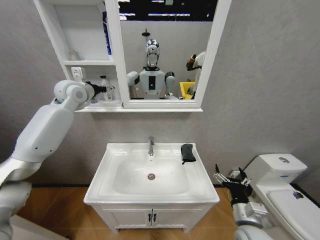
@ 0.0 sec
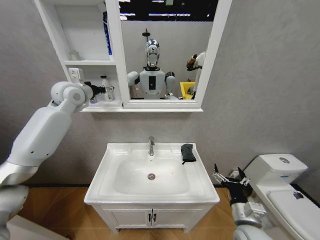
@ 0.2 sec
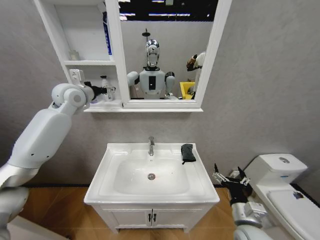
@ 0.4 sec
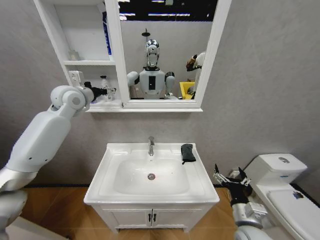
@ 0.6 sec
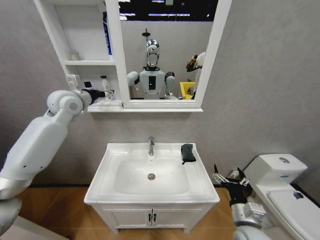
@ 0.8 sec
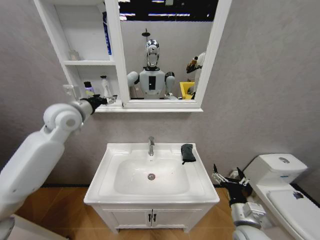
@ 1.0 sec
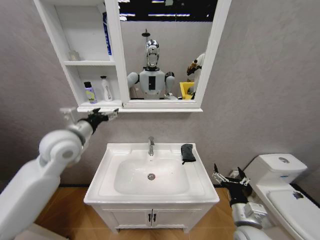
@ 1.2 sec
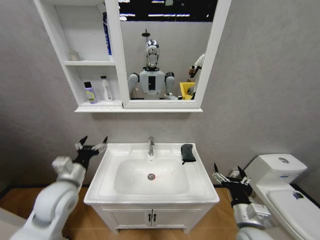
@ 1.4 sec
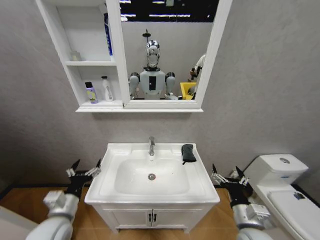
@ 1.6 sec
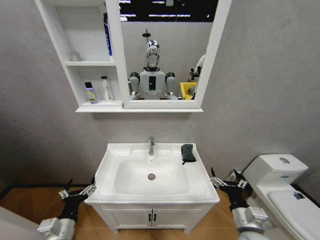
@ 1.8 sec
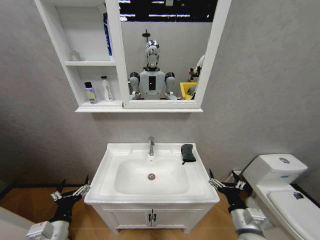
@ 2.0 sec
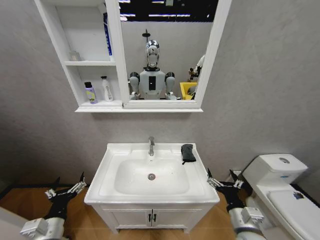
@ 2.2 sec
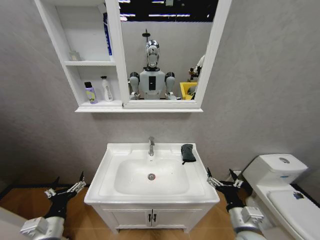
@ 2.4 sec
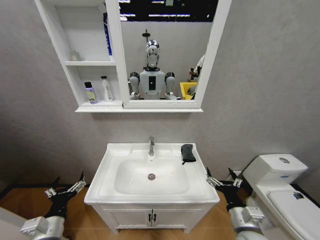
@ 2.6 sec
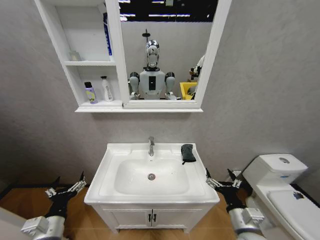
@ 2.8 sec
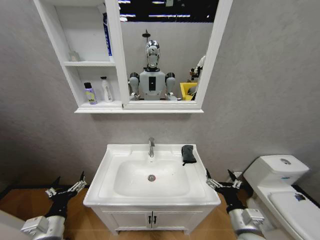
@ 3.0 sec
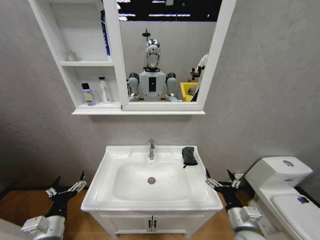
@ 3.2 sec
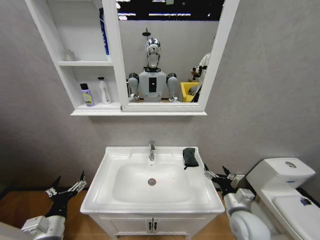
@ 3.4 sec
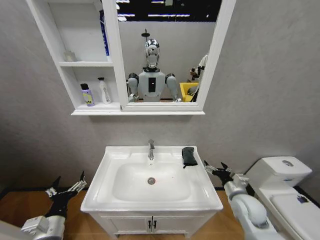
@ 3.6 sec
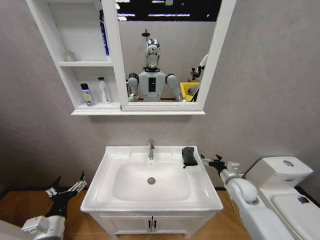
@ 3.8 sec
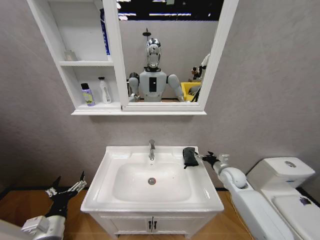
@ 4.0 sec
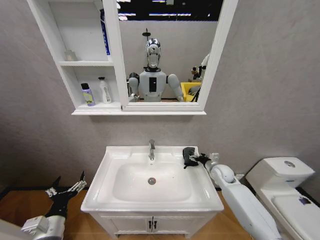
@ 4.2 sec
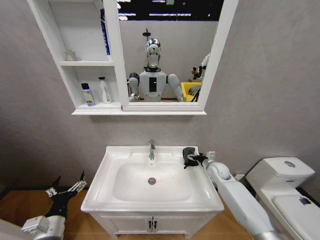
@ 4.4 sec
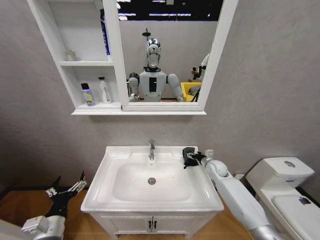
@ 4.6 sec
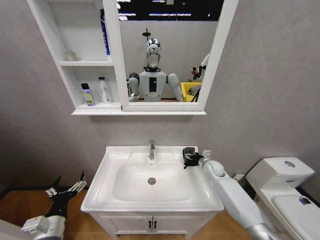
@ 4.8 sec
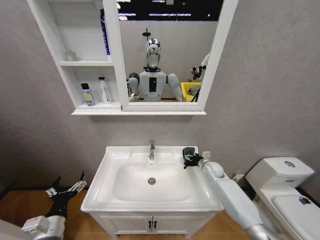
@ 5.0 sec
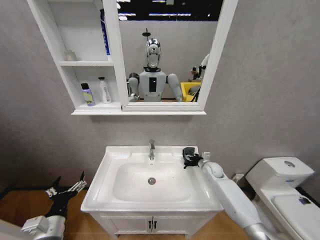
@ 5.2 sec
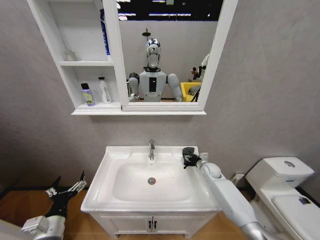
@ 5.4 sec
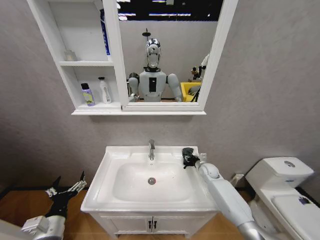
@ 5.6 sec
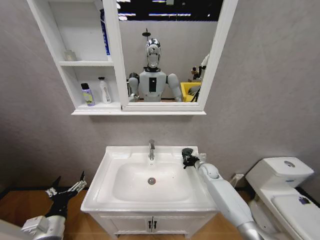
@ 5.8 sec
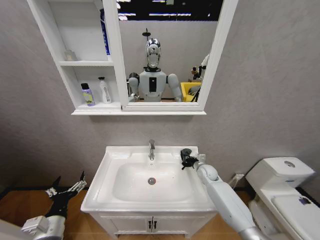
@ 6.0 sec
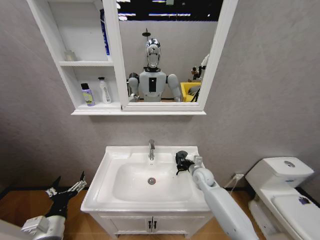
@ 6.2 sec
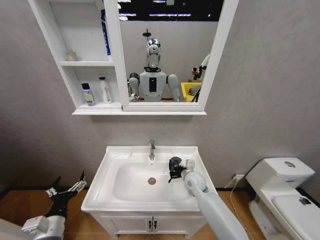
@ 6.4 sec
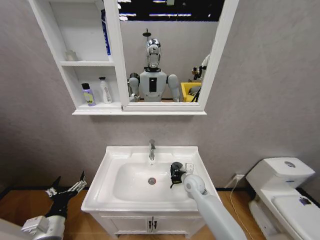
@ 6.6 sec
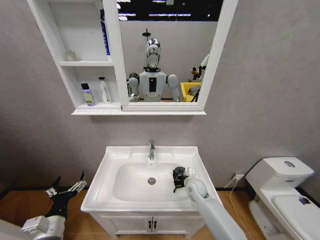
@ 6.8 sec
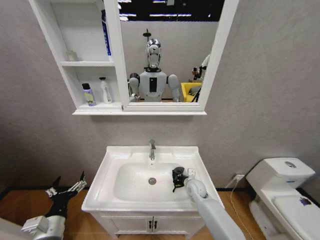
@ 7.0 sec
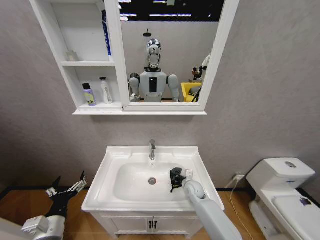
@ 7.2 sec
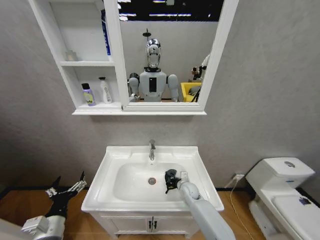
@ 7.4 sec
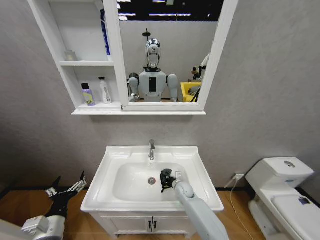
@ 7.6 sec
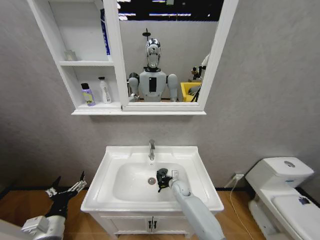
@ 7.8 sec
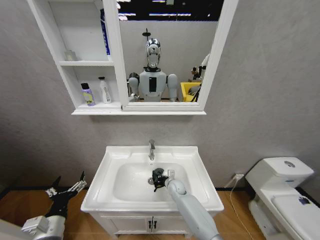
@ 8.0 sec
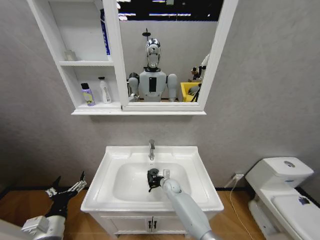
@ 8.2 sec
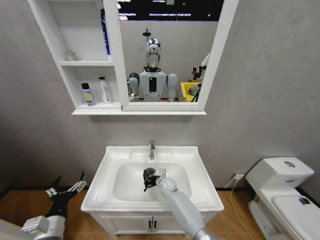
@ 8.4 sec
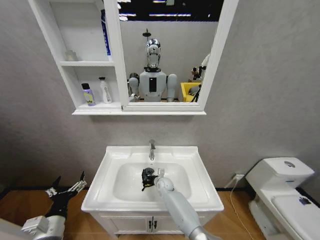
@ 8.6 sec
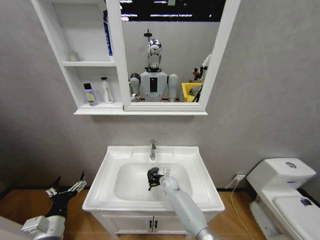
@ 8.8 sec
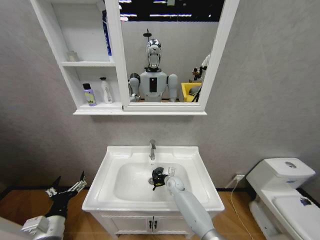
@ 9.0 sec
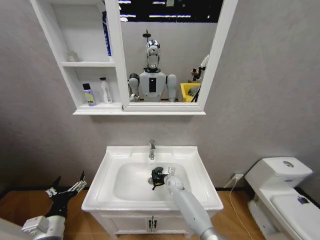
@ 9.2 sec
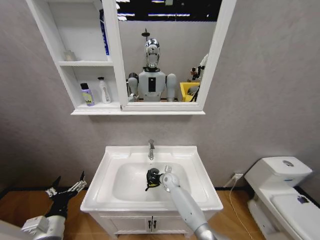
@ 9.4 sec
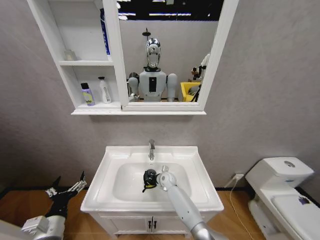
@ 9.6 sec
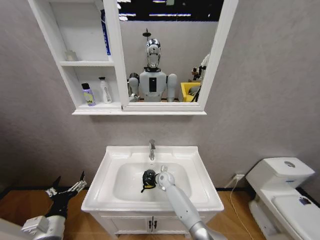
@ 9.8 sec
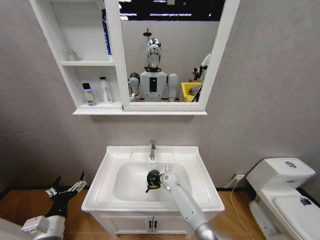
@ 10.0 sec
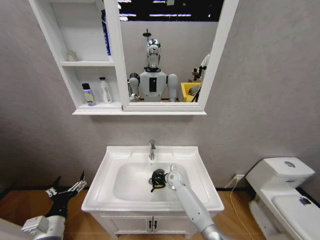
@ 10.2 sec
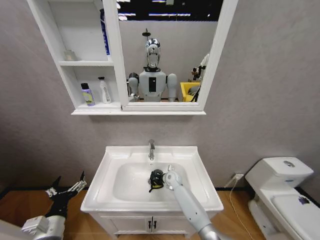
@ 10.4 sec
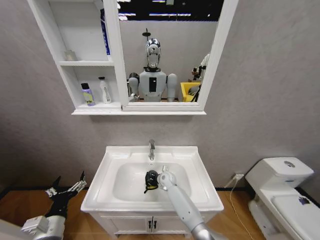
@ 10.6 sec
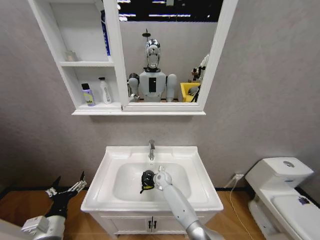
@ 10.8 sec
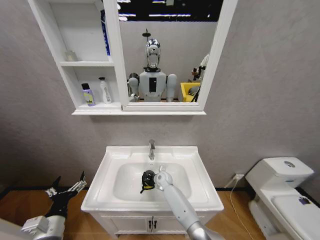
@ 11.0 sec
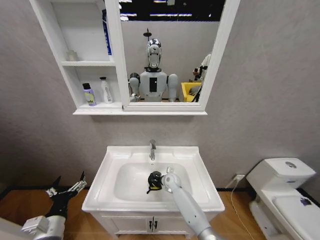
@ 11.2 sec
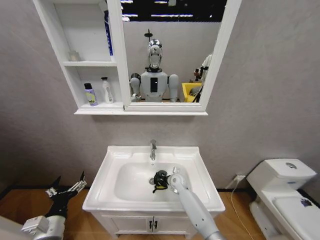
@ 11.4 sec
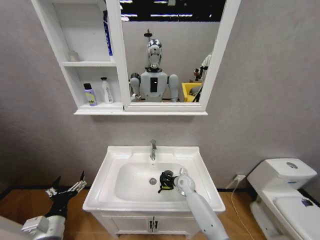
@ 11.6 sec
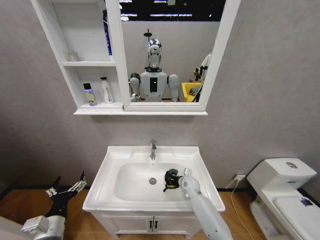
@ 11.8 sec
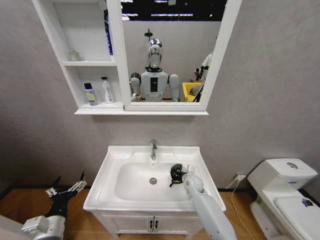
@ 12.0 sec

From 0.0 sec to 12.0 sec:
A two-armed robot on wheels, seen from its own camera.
Task of the whole recording: Move facial cleanser and shampoo from washbasin to cabinet, then wipe washbasin with towel.
From 0.0 sec to 1.6 sec: The left gripper moves downward and backward, approximately 40 cm.
From 1.6 sec to 3.0 sec: The left gripper goes about 5 cm backward.
From 3.0 sec to 4.4 sec: The right gripper heads forward, covering roughly 30 cm.
From 4.4 sec to 6.0 sec: The right gripper moves roughly 5 cm, and closes its fingers.
From 6.0 sec to 7.6 sec: The right gripper shifts approximately 15 cm to the left and downward.
From 9.0 sec to 10.4 sec: There are only small adjustments of the grippers.
From 10.4 sec to 12.0 sec: The right gripper shifts approximately 10 cm to the right.

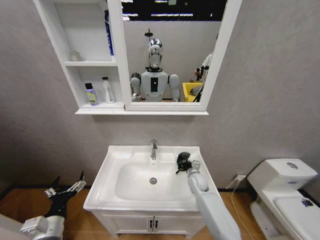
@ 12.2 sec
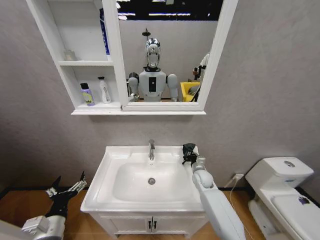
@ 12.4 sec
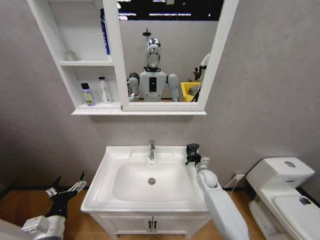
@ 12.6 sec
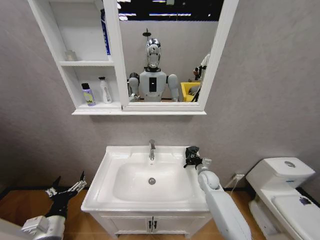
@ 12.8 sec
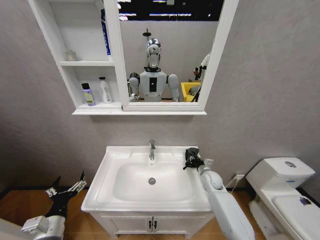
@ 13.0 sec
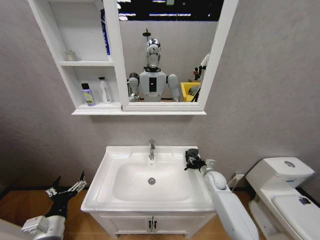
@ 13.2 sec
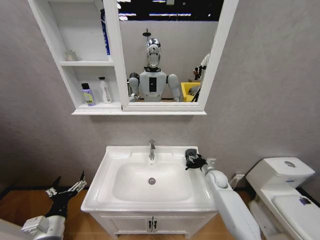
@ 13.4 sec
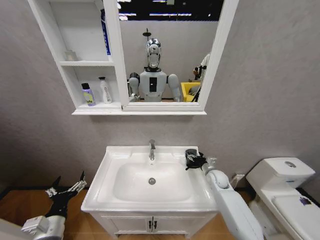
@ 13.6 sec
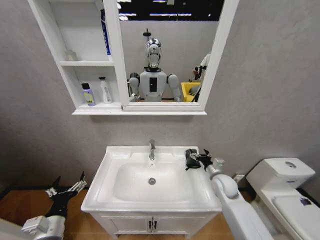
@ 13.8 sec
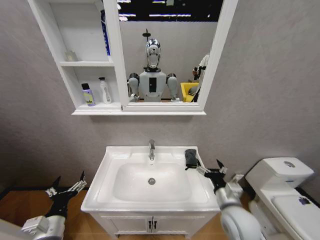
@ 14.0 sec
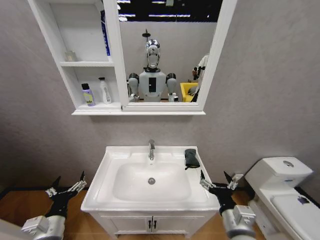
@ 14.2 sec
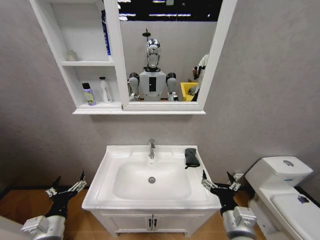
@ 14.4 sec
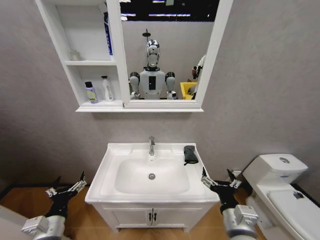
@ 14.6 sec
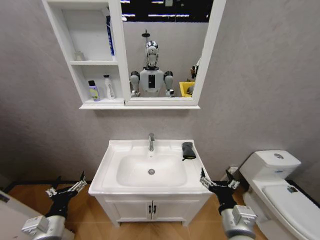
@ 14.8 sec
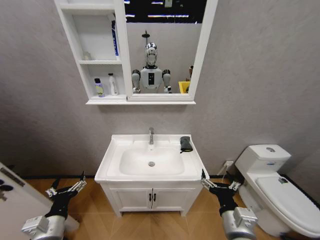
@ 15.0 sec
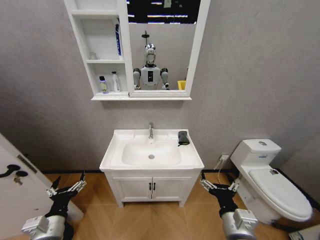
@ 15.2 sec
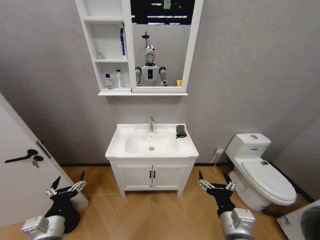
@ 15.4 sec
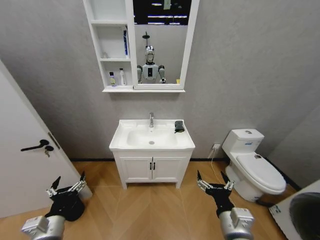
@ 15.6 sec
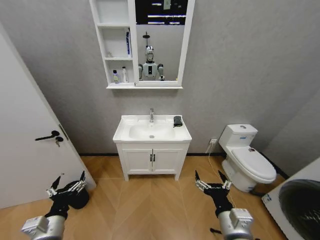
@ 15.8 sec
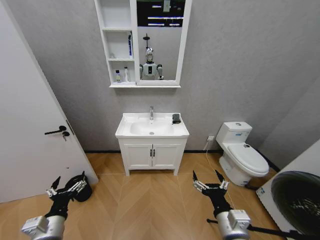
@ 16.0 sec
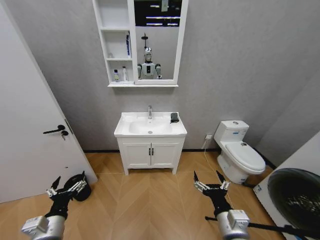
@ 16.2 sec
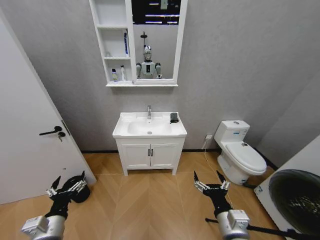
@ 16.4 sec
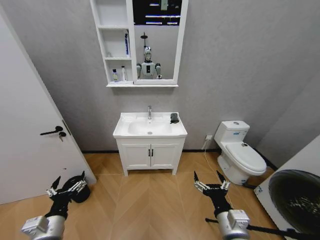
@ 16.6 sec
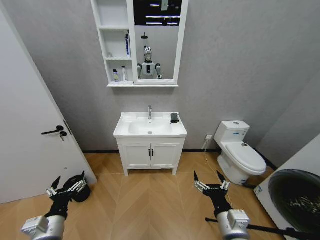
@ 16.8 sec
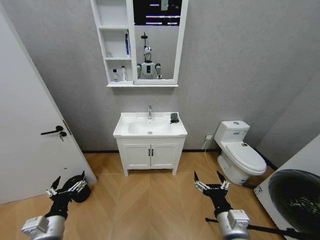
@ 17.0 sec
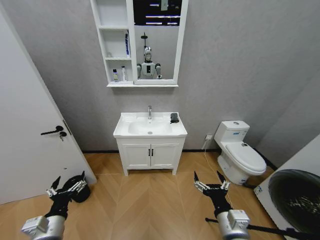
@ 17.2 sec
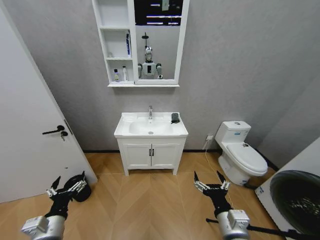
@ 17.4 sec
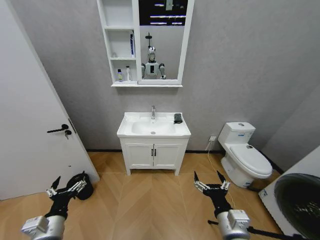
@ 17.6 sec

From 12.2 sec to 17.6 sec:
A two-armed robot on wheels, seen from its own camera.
Task of the whole recording: Move facial cleanser and shampoo from washbasin to cabinet, then wipe washbasin with towel.
From 12.2 sec to 13.6 sec: The right gripper goes some 10 cm to the right, and opens.
From 13.6 sec to 15.0 sec: The right gripper heads backward and to the left, covering about 30 cm.
From 16.2 sec to 17.6 sec: Neither gripper changes place.
